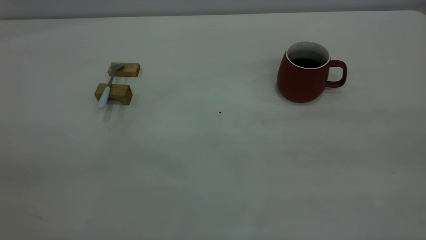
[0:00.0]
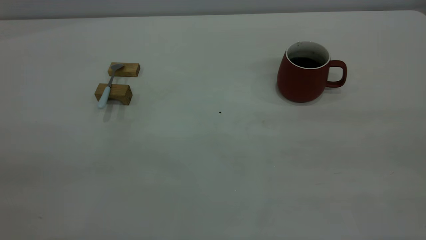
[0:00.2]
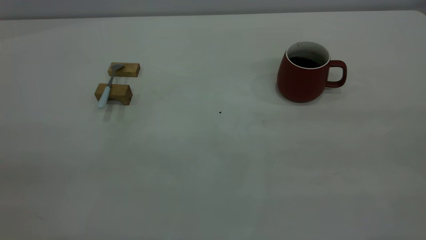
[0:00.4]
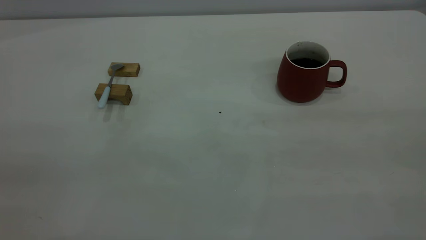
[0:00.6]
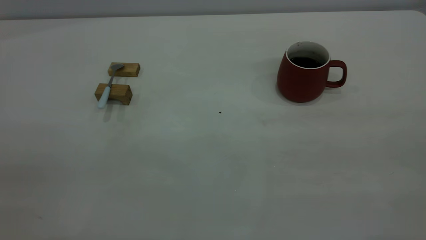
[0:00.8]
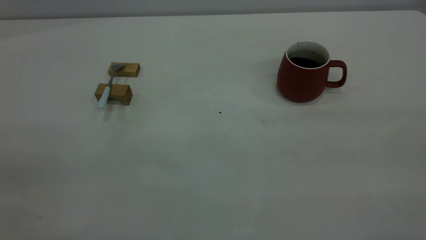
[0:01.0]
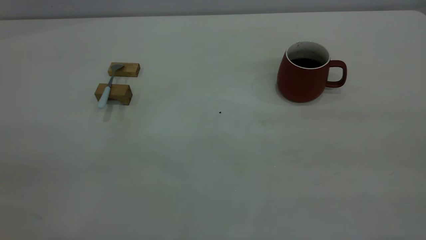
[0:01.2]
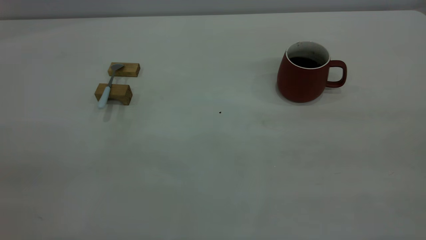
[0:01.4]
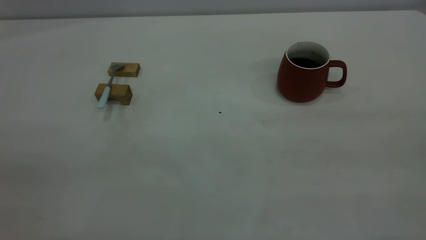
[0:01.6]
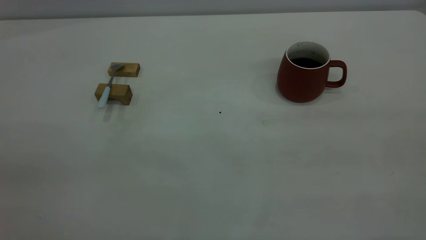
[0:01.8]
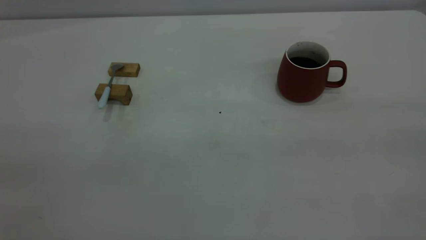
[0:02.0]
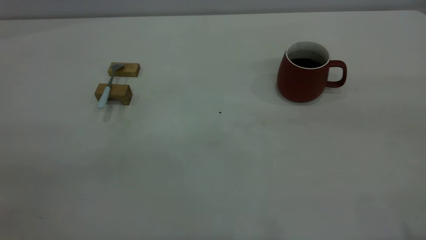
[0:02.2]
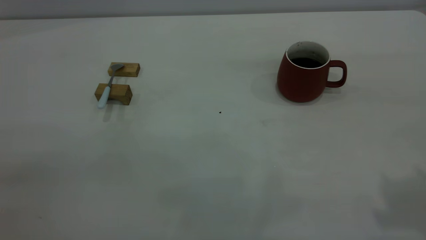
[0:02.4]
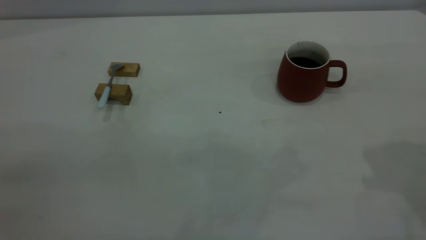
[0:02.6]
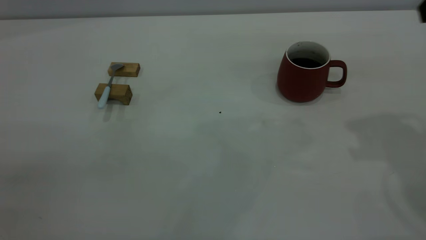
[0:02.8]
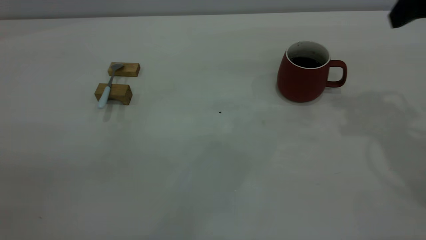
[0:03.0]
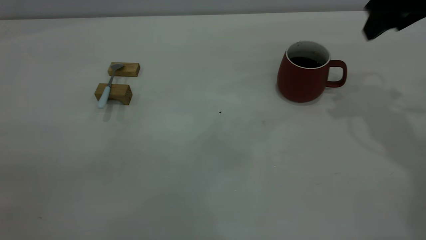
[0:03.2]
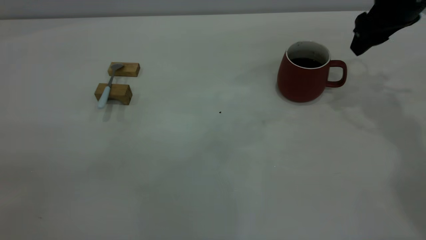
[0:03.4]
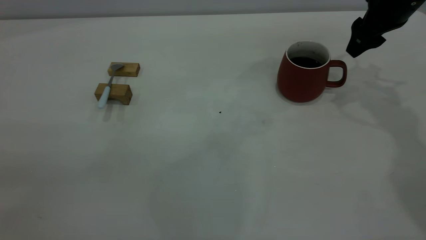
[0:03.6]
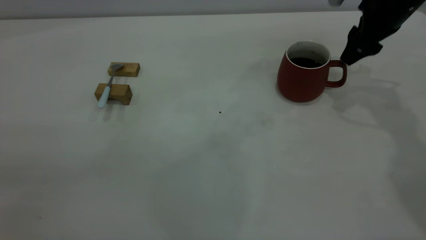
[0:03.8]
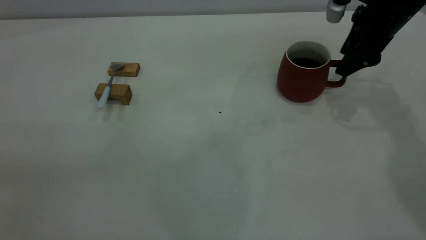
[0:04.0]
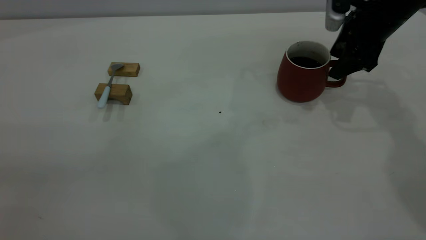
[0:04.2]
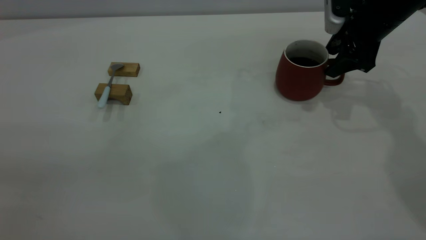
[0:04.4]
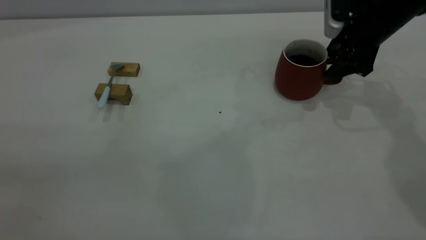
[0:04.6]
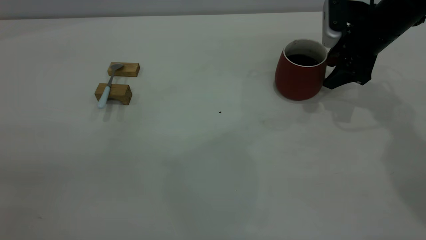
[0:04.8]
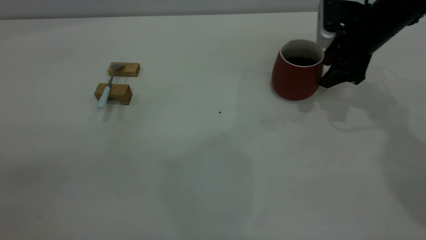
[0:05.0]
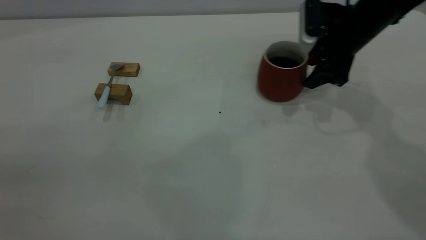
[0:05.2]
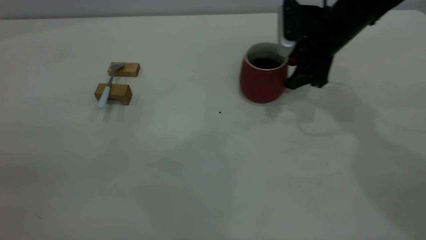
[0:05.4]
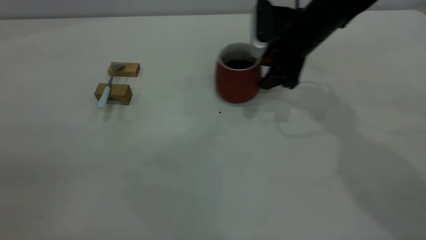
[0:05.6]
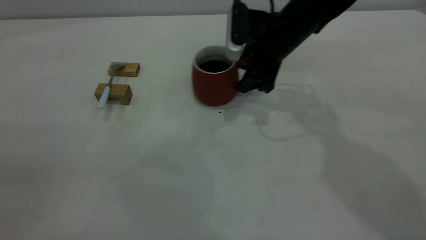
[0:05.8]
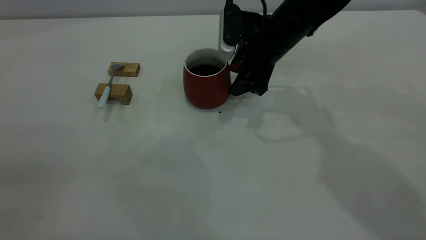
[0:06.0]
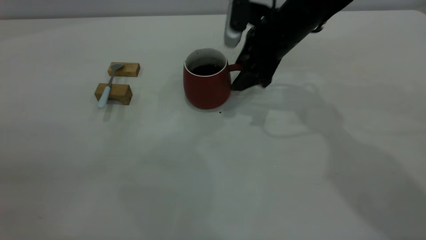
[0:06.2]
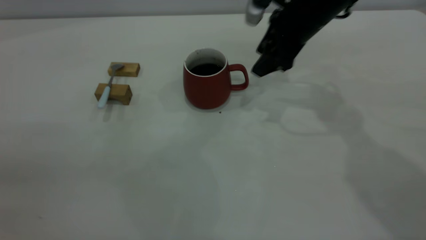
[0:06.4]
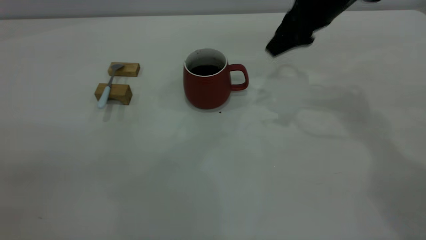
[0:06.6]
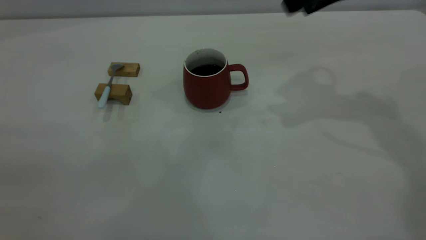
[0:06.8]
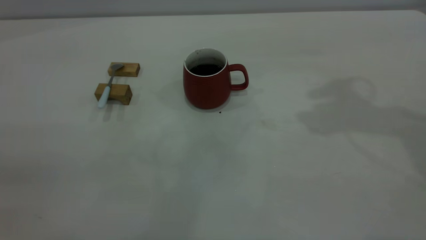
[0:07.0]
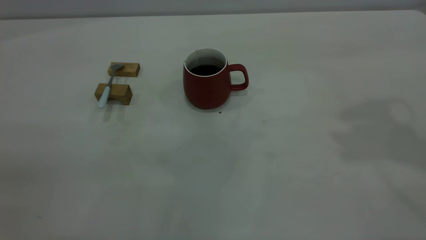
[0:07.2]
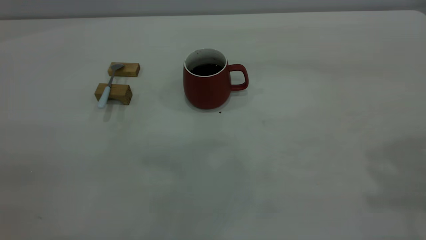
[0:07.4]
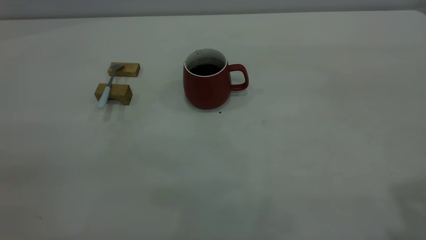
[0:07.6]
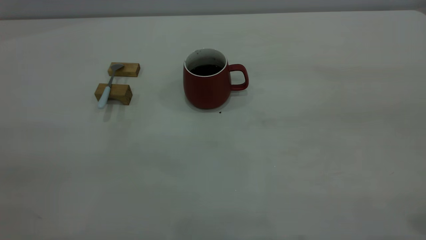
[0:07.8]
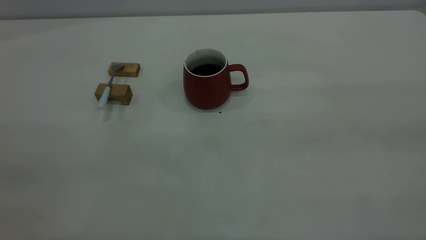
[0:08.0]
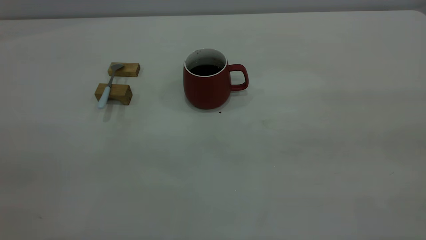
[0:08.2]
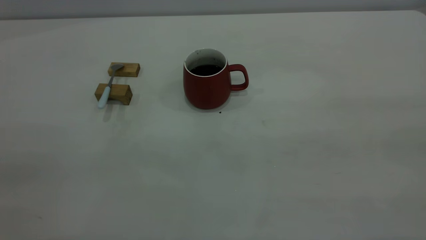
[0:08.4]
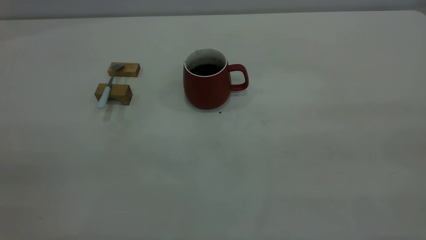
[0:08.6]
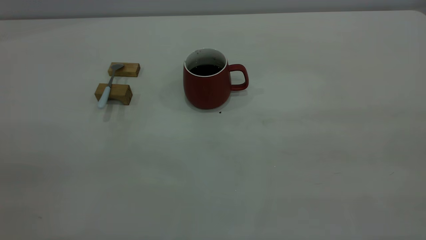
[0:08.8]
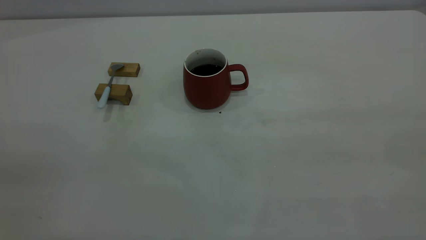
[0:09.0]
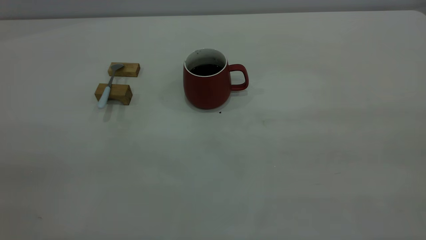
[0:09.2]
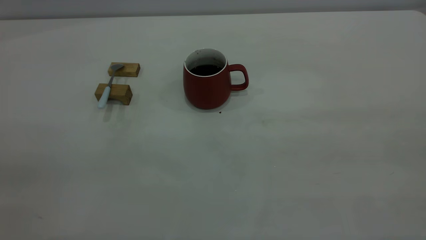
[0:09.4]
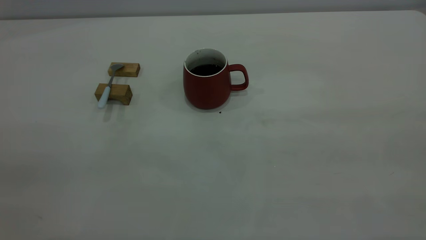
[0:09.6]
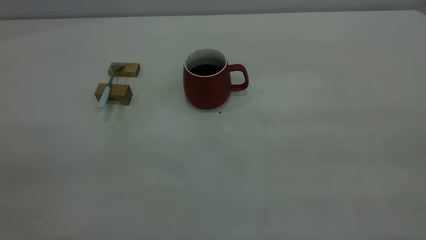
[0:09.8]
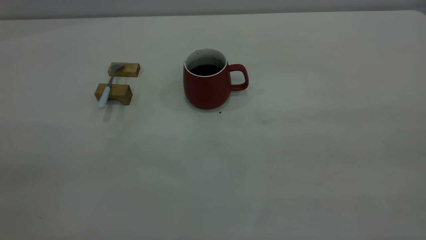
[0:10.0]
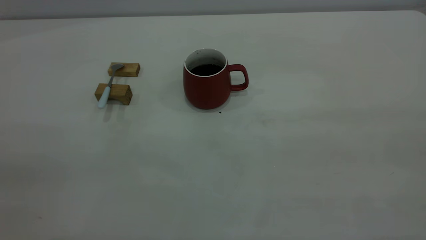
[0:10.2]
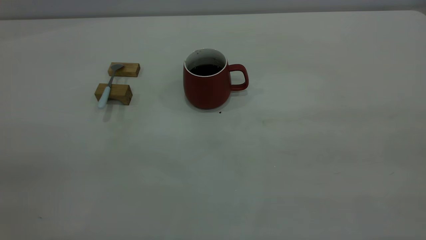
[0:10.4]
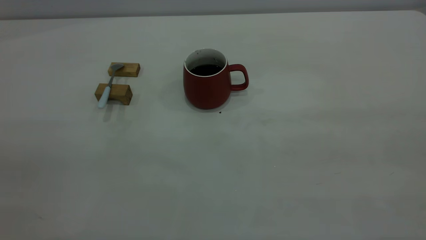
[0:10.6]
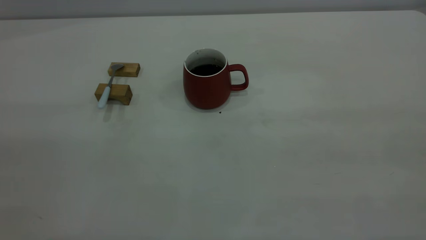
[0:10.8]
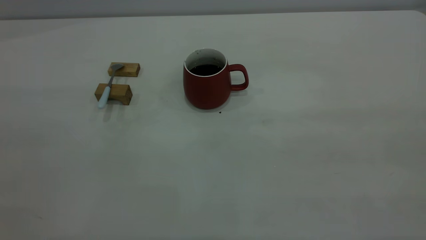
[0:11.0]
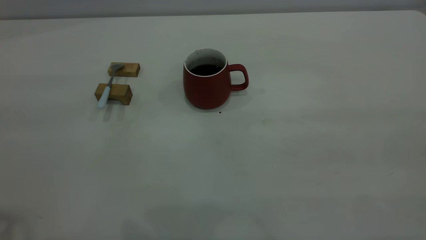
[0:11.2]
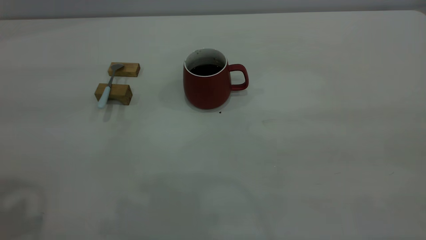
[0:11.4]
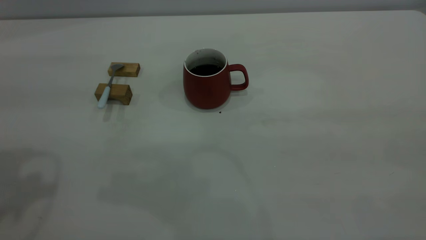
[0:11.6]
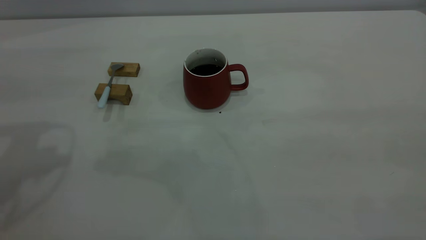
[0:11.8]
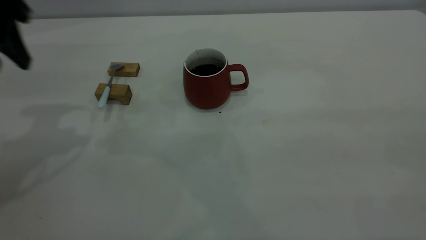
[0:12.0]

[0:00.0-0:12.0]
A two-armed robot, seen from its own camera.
Step, 0.0 to 6.4 s: Move the cup with coffee to the center of view.
0.0 to 1.6 s: Neither gripper changes place.
1.6 to 3.0 s: The right gripper heads forward, covering some 35 cm.
3.0 to 4.4 s: The right gripper goes approximately 15 cm downward and forward.
4.4 to 6.0 s: The right gripper heads to the left, covering about 15 cm.
6.0 to 7.6 s: The right gripper travels backward, upward and to the right by some 40 cm, and closes up.
9.0 to 10.4 s: Both grippers stay about where they are.
10.4 to 12.0 s: The left gripper moves forward, some 35 cm.

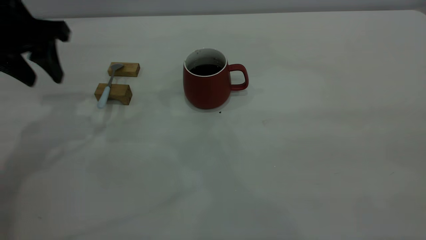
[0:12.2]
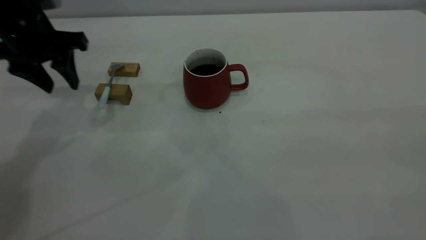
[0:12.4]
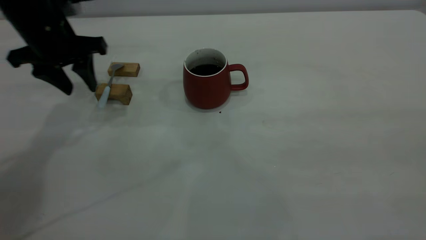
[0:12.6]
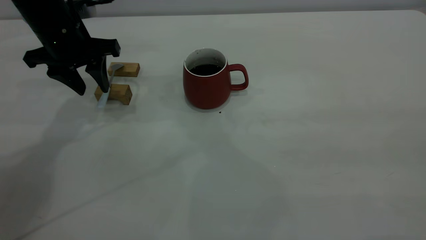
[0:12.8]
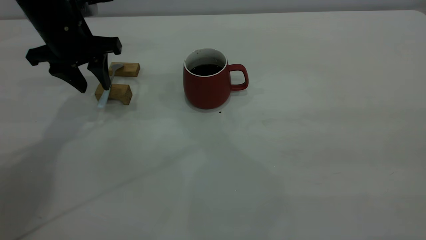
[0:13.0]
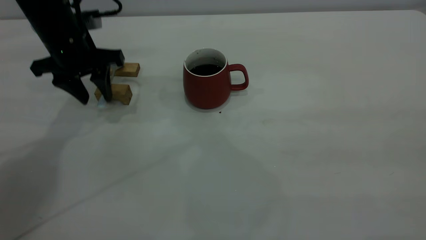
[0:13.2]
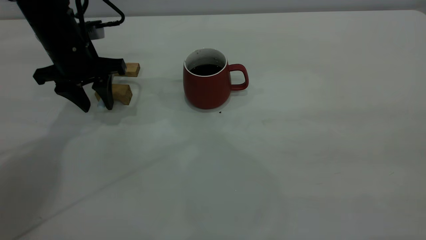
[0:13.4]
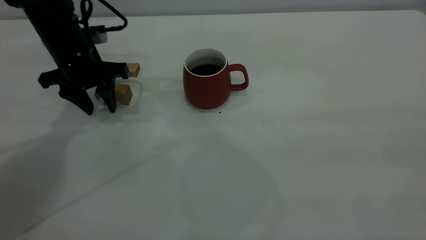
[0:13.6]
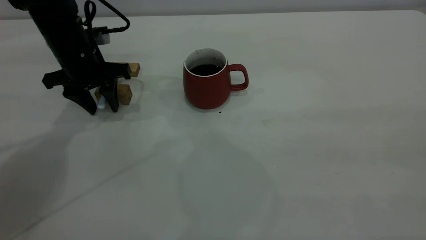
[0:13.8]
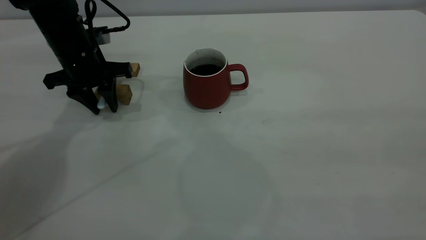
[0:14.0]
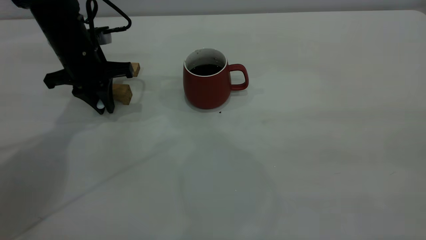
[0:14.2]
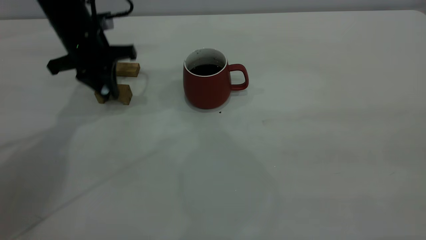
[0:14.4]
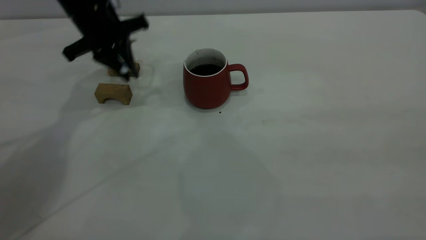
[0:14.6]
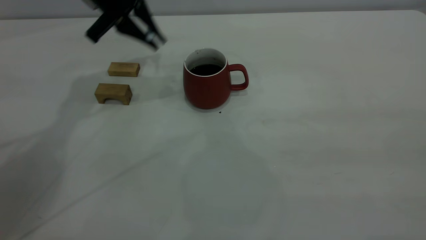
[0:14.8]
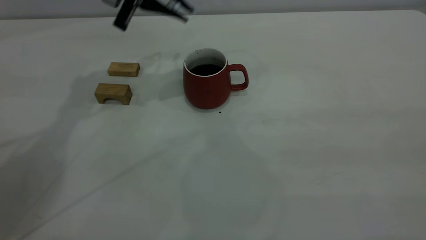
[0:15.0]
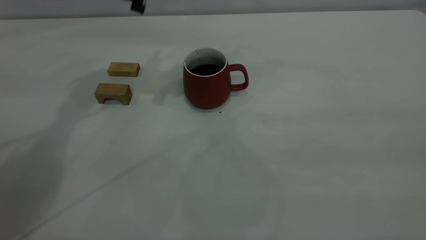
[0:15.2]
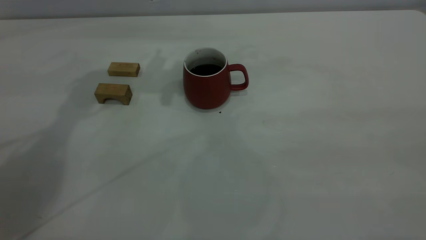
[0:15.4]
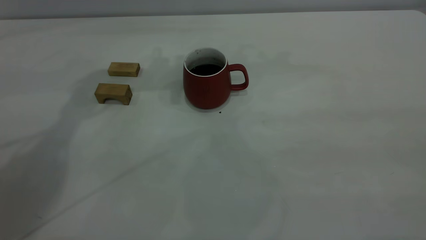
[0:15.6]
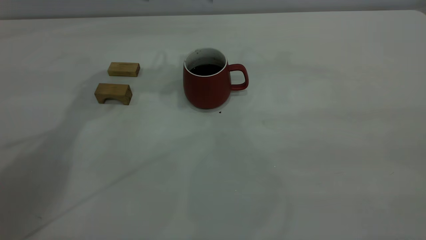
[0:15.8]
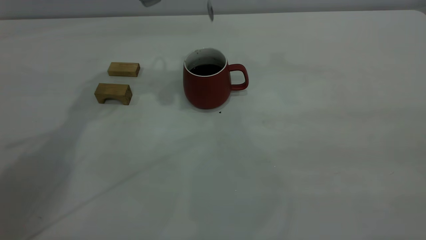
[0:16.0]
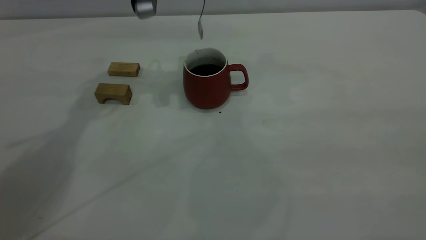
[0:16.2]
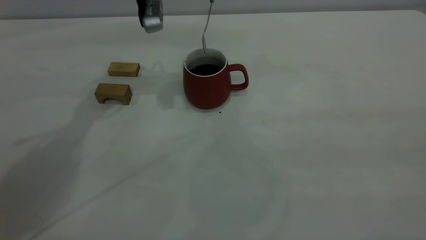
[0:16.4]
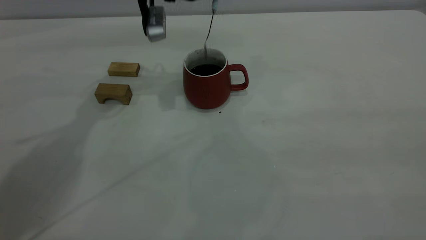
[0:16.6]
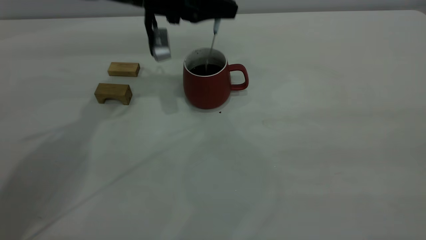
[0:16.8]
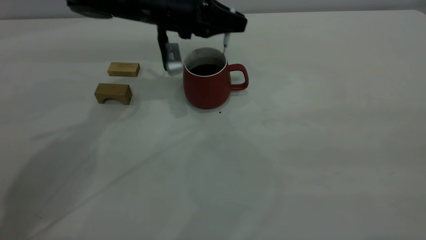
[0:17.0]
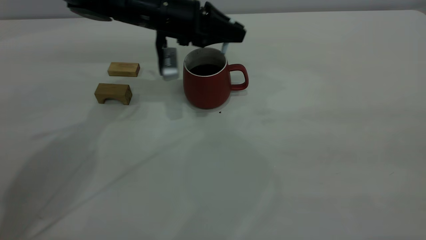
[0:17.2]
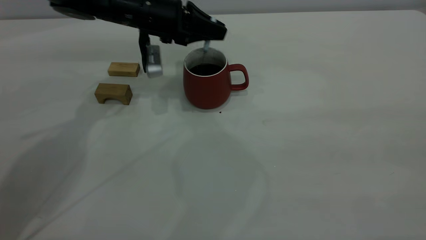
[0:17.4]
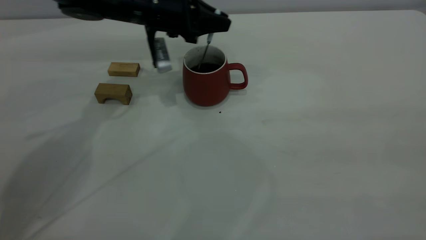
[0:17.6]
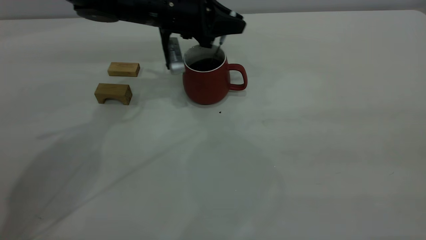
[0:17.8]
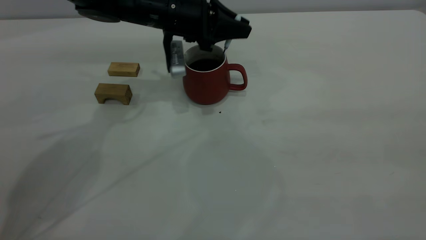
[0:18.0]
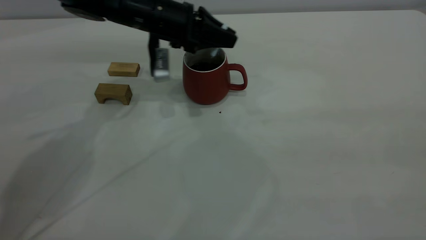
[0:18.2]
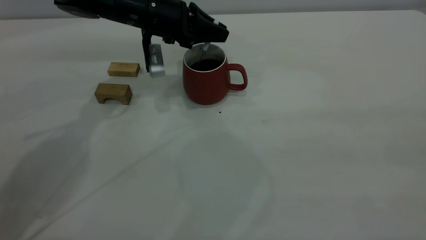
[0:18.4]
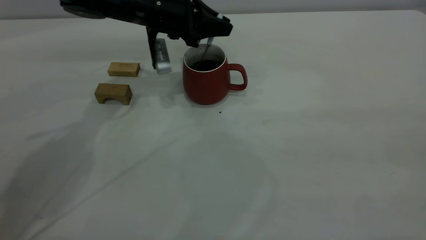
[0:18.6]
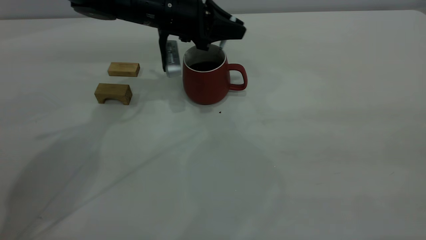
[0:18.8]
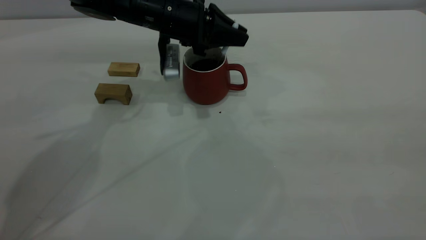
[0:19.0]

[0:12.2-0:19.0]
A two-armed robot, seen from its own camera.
Step, 12.2 to 14.4 s: Pick up the spoon.
12.2 to 13.6 s: The left gripper moves downward and forward, some 10 cm.
13.6 to 15.0 s: The left gripper heads upward and to the right, covering about 15 cm, and closes up.
16.2 to 17.6 s: The left gripper is displaced downward by roughly 10 cm.
17.6 to 19.0 s: The grippers move only a little.
